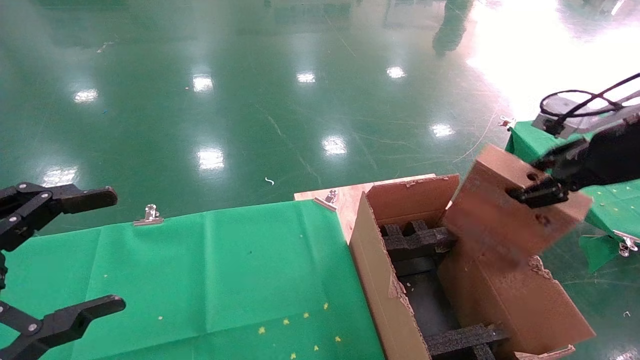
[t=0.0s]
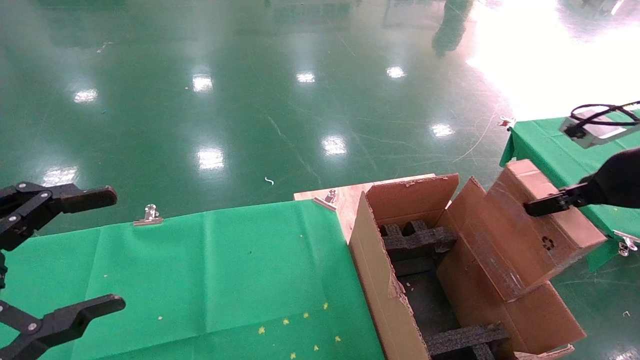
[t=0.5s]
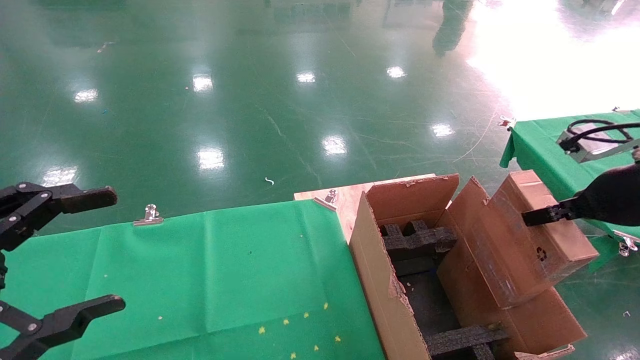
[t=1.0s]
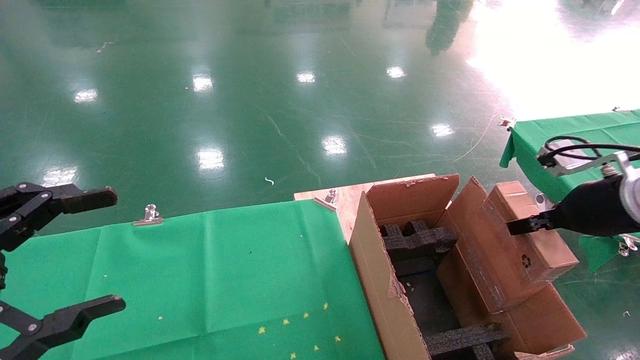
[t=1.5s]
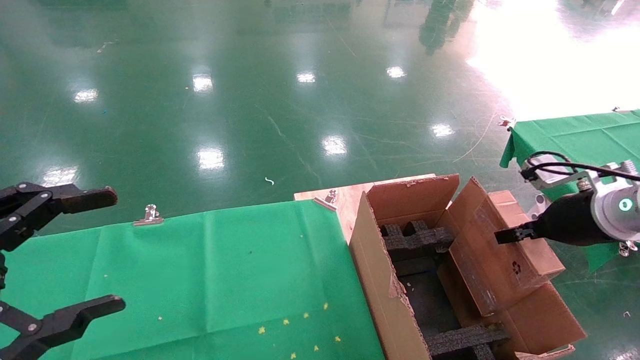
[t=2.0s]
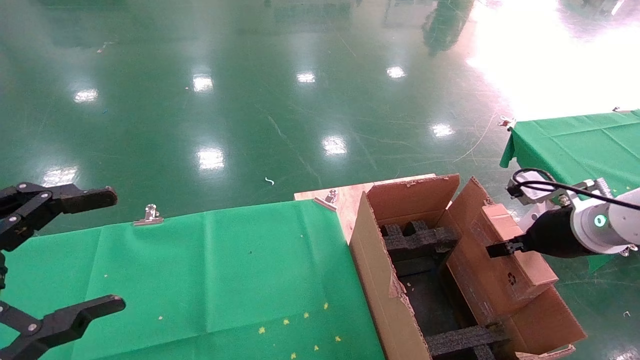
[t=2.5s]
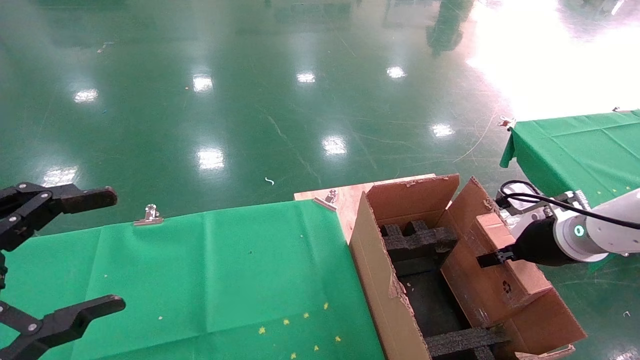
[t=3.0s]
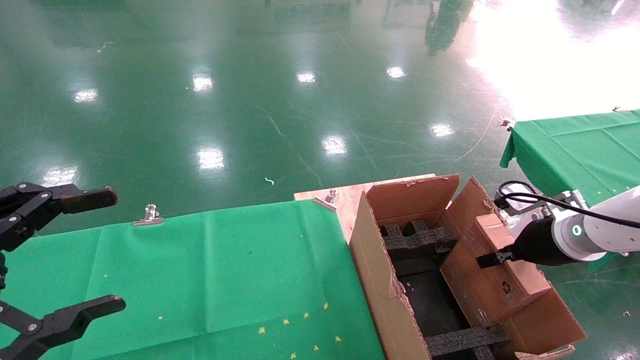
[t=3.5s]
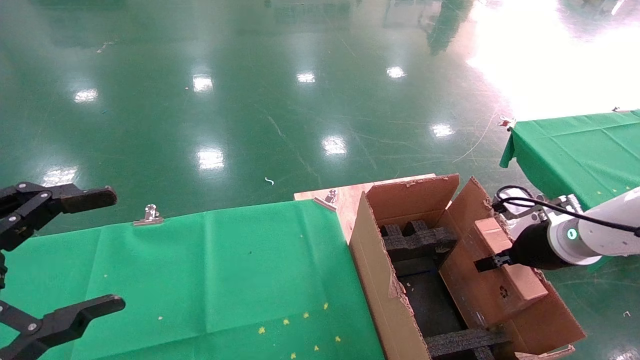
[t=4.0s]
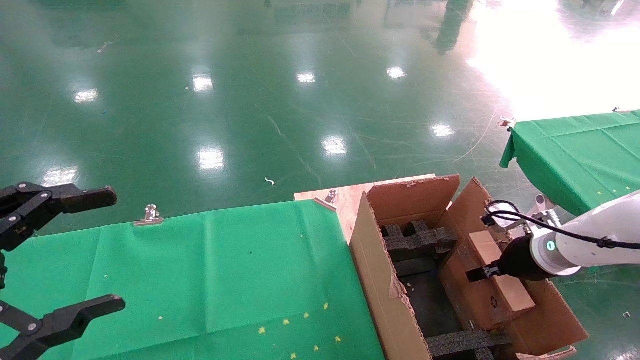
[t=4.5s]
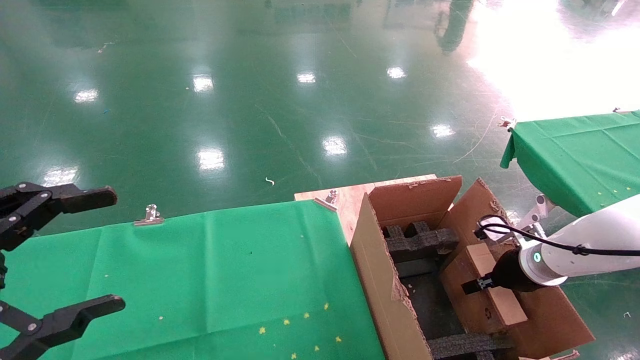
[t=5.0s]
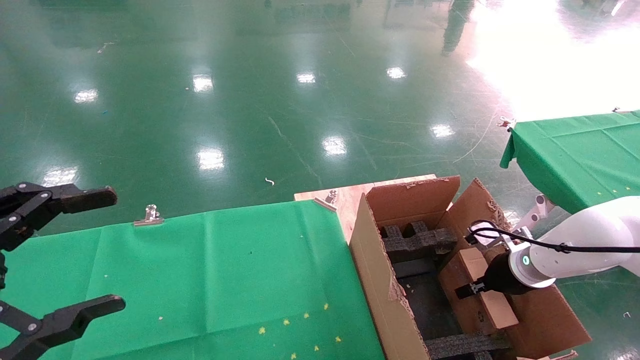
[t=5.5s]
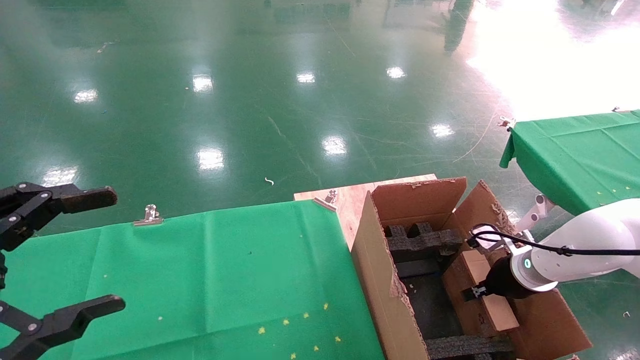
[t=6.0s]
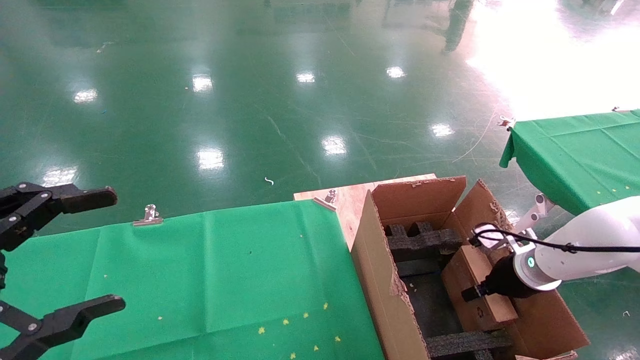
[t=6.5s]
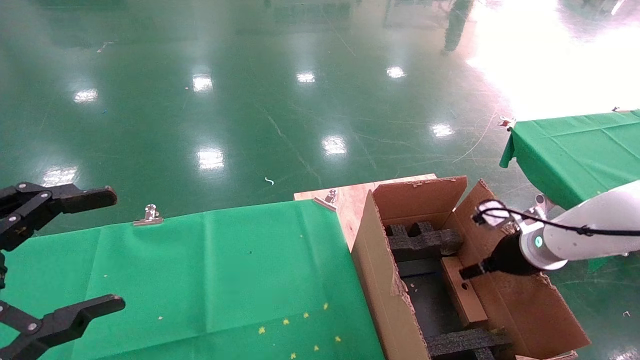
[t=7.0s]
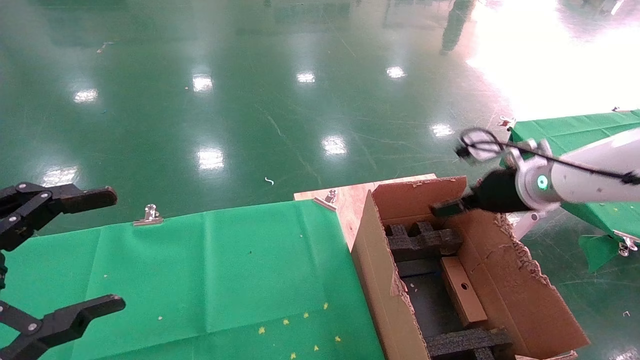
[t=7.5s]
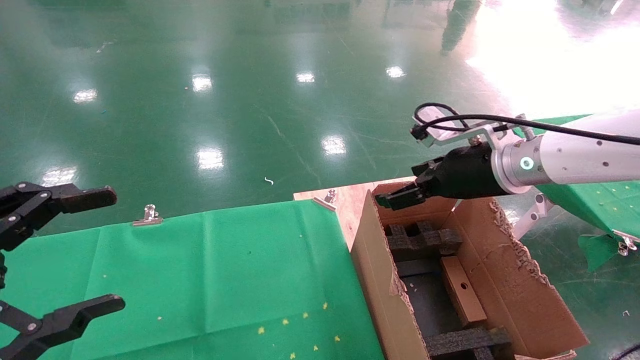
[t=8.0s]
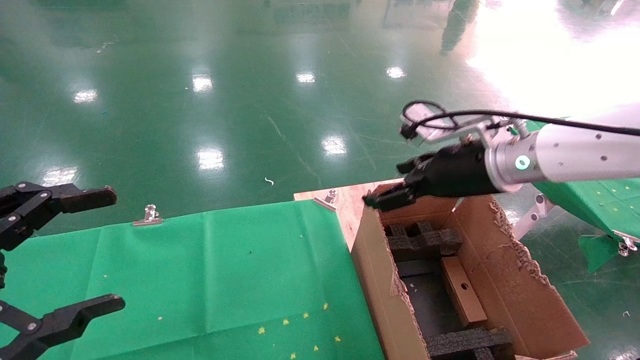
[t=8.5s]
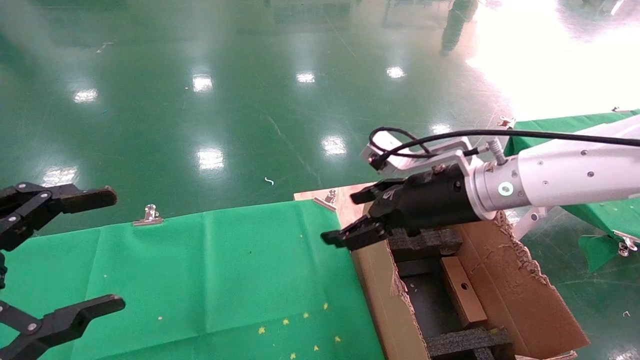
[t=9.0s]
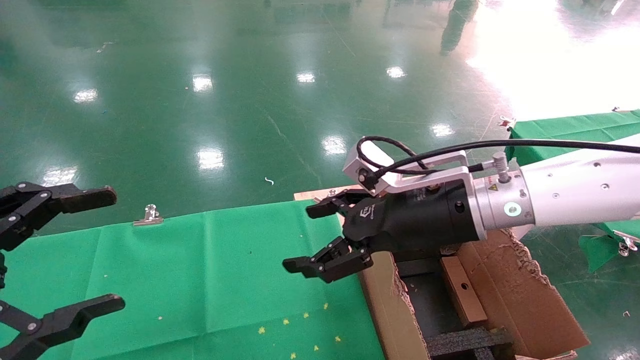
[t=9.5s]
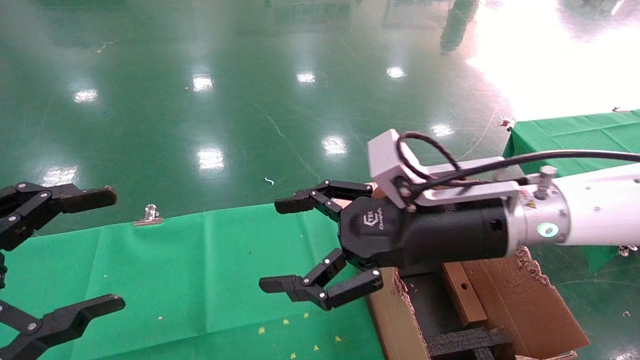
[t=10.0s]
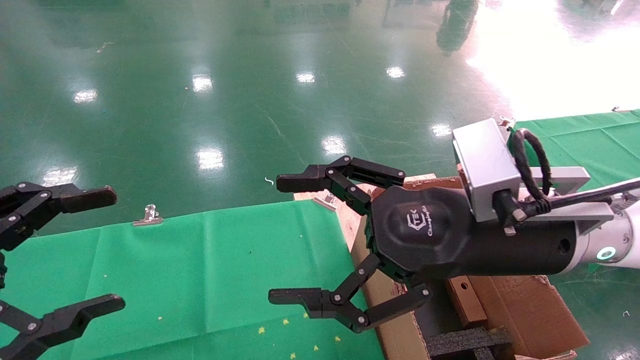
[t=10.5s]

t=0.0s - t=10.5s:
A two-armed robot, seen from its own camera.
Task of the whole recording: using a robotic arm to pick up a cardboard box and palace it the carton.
Step, t=0.0s - t=7.0s: Place the mouse and the power cord paper box into the container.
t=0.0s - t=2.0s: The right gripper is displaced downward by about 10 cm.
t=2.0s - t=4.0s: The right gripper heads downward, covering approximately 5 cm.
t=4.0s - t=6.5s: The right gripper is displaced downward by about 5 cm, and opens its fingers.
t=6.5s - t=8.5s: The right gripper shifts some 25 cm upward and to the left, and opens.
t=8.5s - t=10.5s: The right gripper heads backward and to the left, covering some 15 cm.

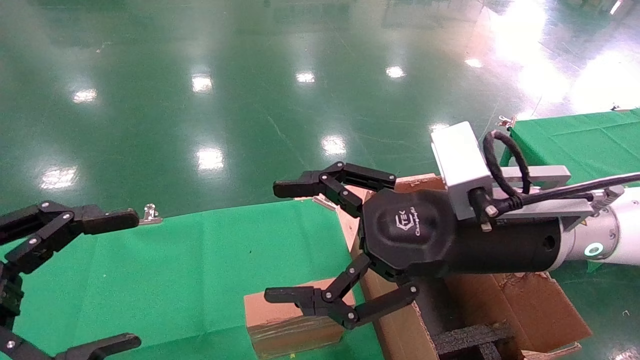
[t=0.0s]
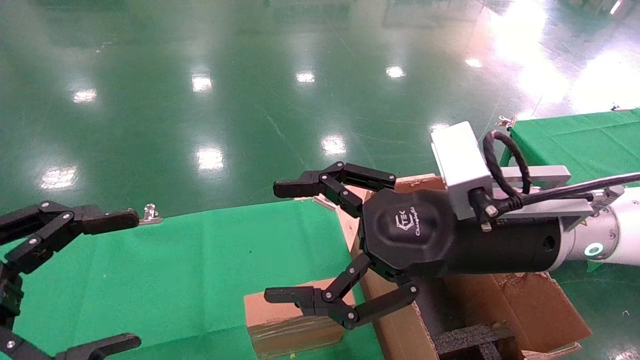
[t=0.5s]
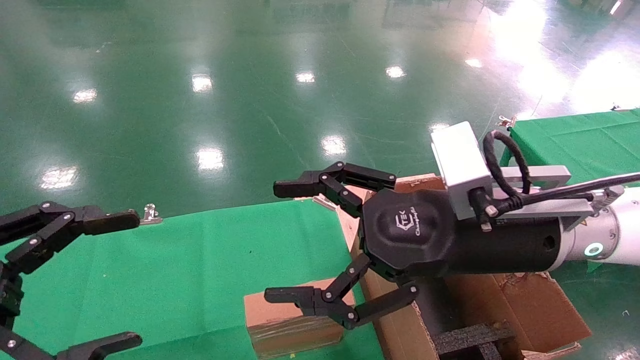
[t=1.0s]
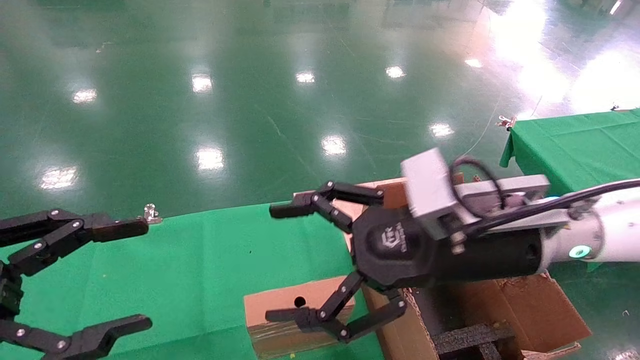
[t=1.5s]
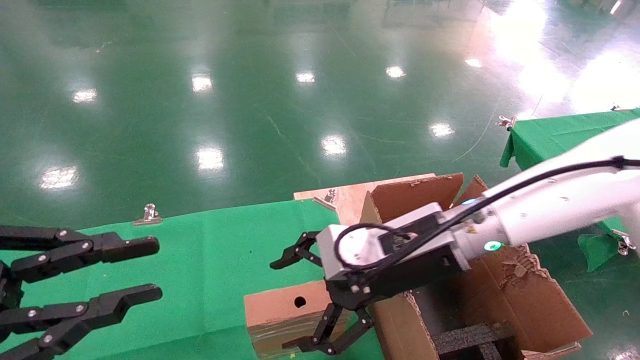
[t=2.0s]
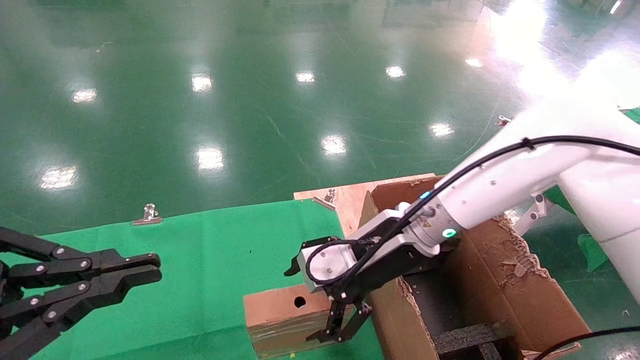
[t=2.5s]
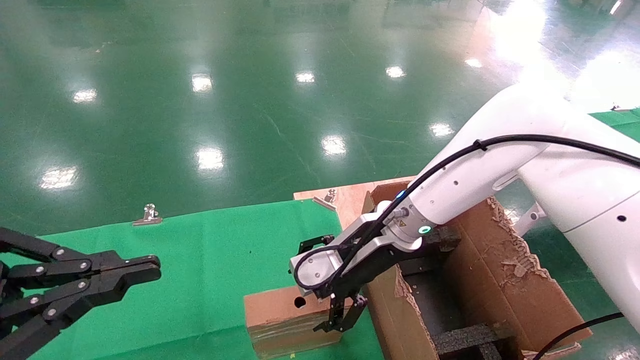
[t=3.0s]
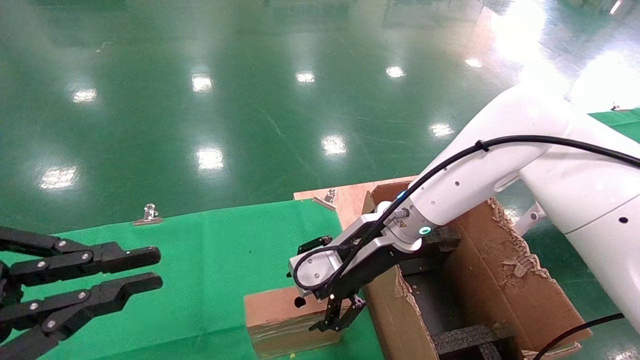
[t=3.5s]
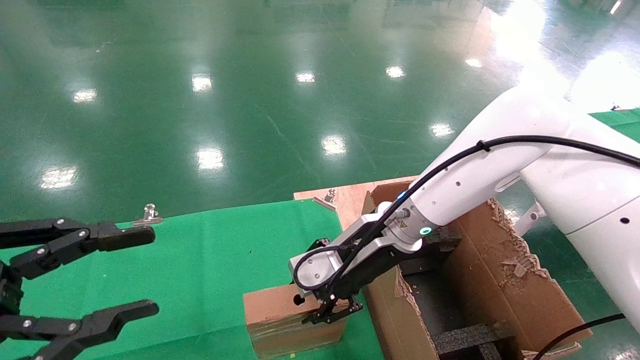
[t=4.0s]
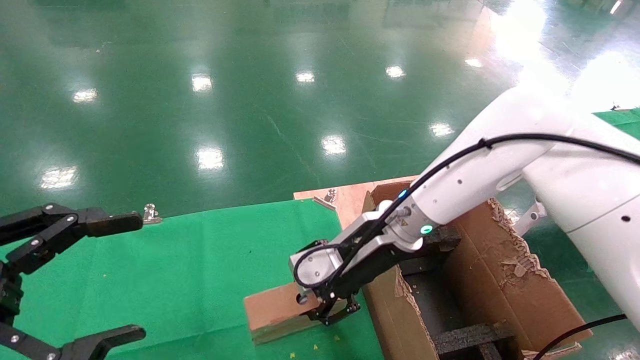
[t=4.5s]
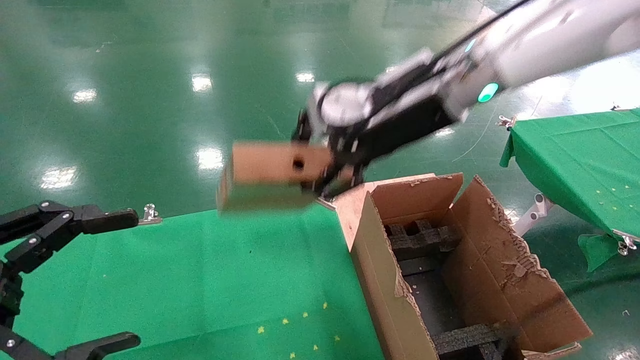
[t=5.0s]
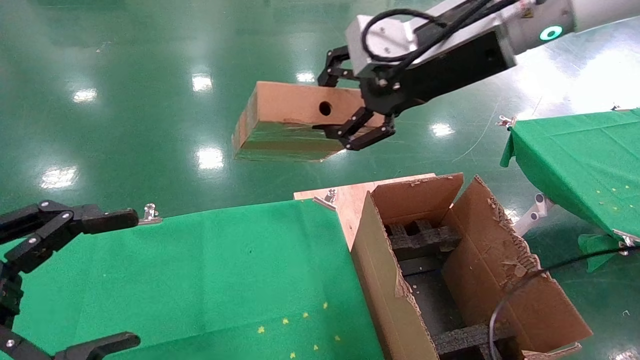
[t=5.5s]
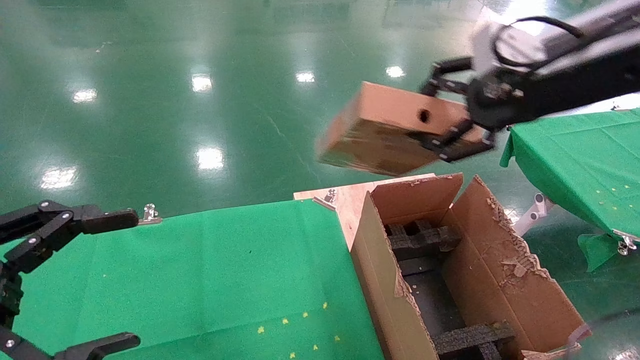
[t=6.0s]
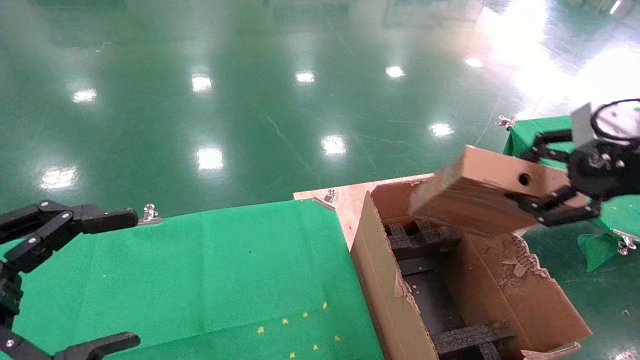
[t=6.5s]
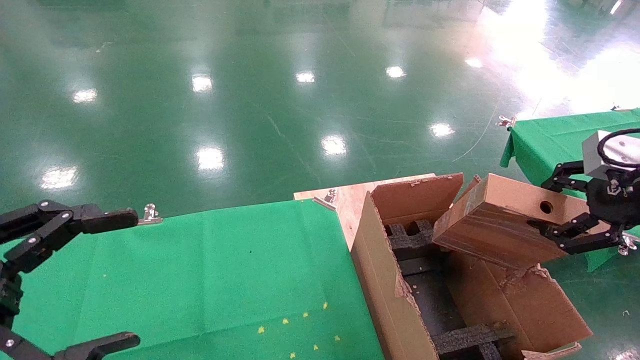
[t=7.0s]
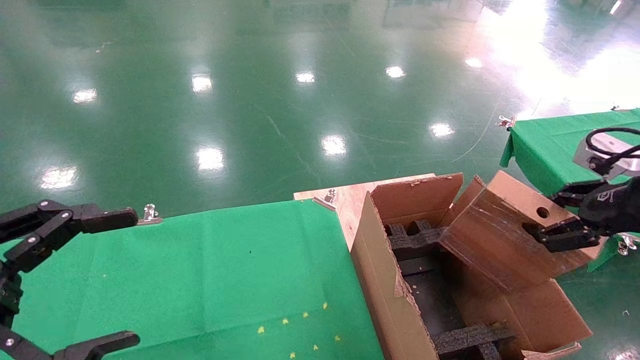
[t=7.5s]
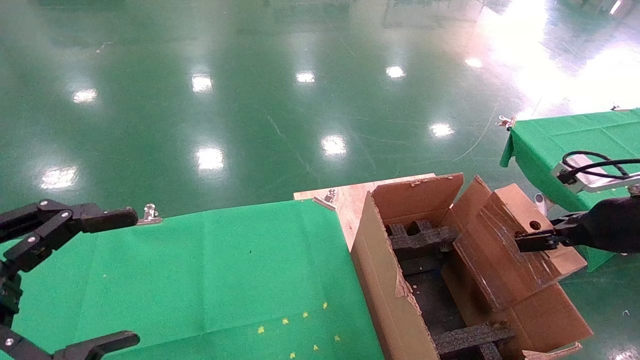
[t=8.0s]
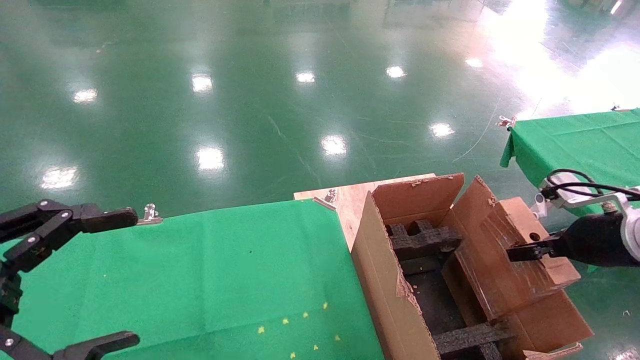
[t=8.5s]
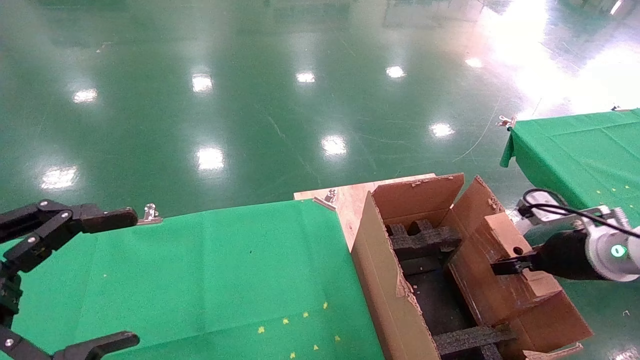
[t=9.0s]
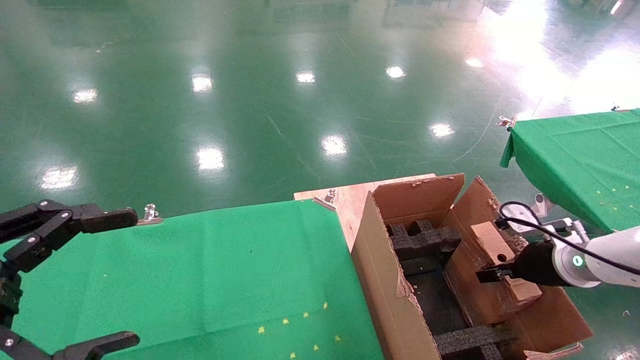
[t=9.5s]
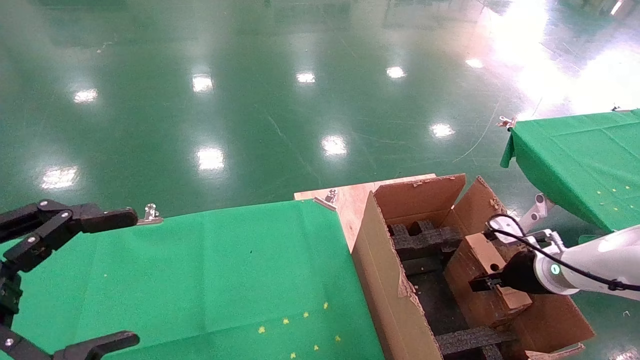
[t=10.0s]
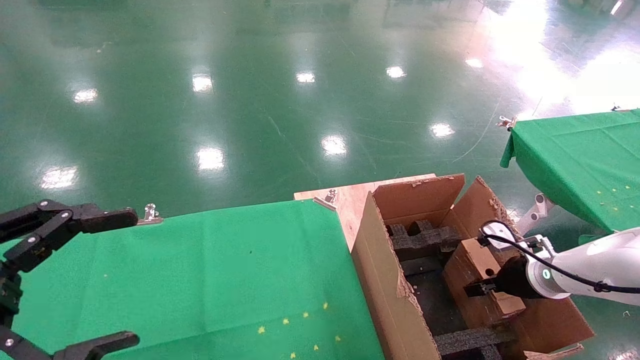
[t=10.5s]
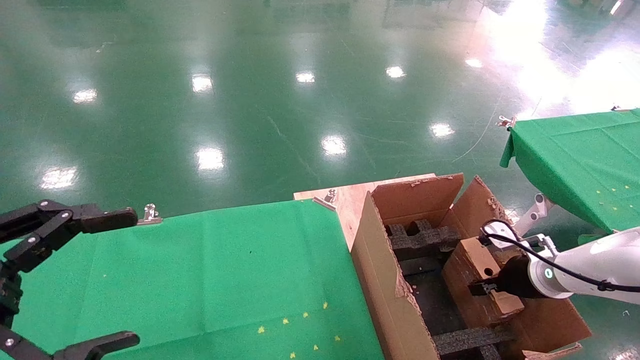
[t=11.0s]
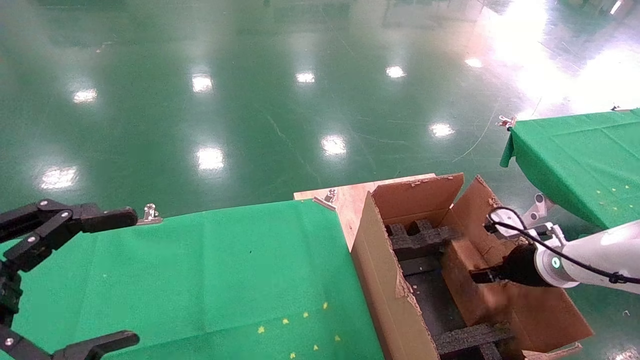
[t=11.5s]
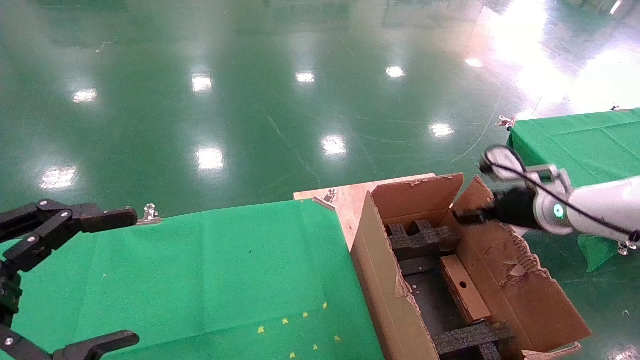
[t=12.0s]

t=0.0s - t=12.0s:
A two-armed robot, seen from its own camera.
Task of the whole recording: using a robotic arm to pick up a cardboard box and palace it the carton.
Step, t=2.0s - t=4.0s: Pick up the mouse and the power cord paper box.
Step, t=4.5s - t=11.0s: Place the mouse and the power cord paper box into the container.
t=0.0s - t=2.0s: The left gripper closes; the right gripper goes roughly 5 cm forward.
t=2.0s - t=4.0s: The left gripper closes, then reopens. Meanwhile the right gripper moves forward, approximately 5 cm, and closes up.
t=4.0s - t=6.0s: The left gripper opens up. The right gripper heads upward, to the right and backward, covering some 30 cm, and closes its fingers.
t=6.0s - t=8.0s: The right gripper travels downward and to the right by approximately 20 cm.
t=8.0s - t=10.0s: The right gripper is displaced downward and forward by about 15 cm.
t=10.0s - t=12.0s: The right gripper travels upward by some 10 cm, and opens its fingers.
